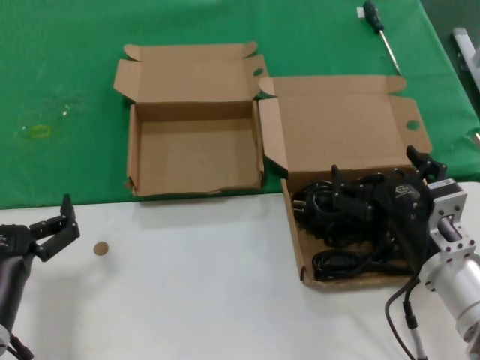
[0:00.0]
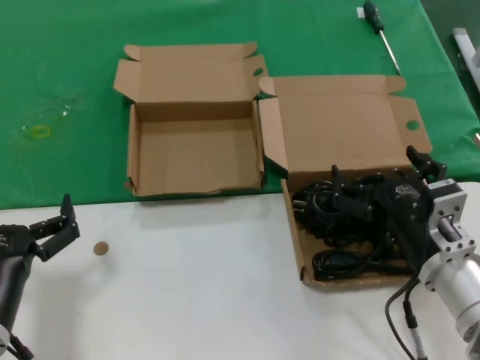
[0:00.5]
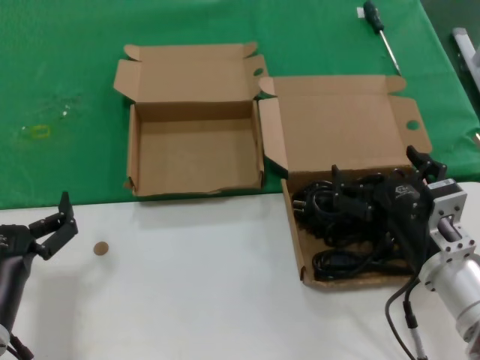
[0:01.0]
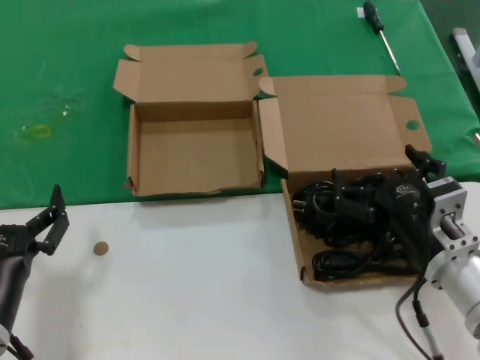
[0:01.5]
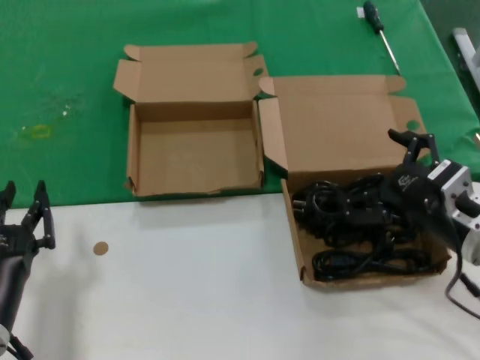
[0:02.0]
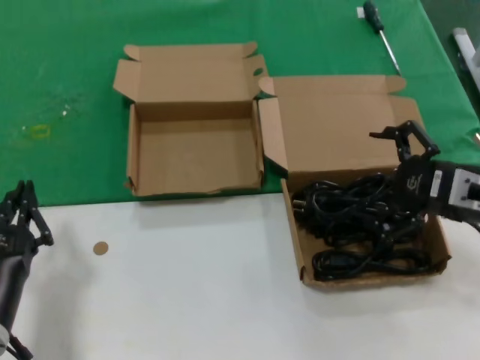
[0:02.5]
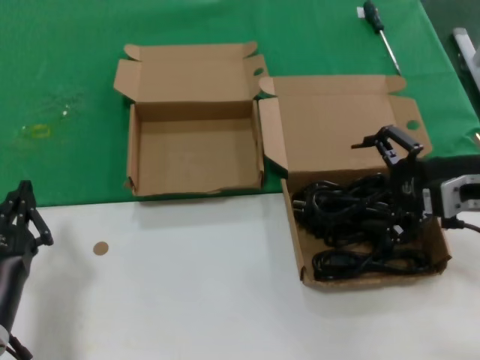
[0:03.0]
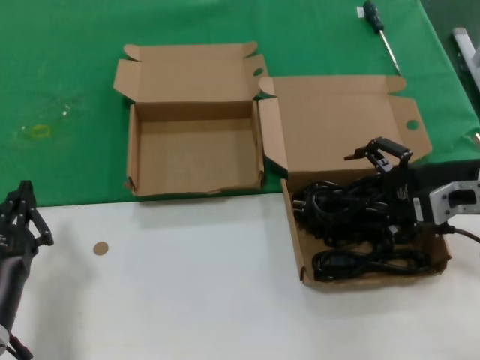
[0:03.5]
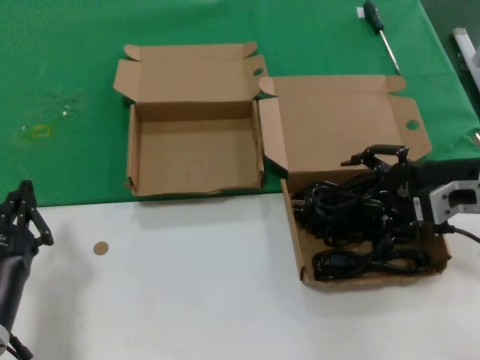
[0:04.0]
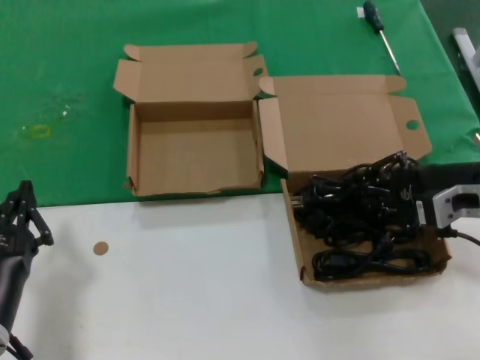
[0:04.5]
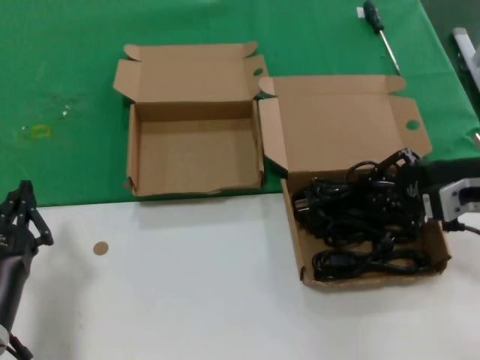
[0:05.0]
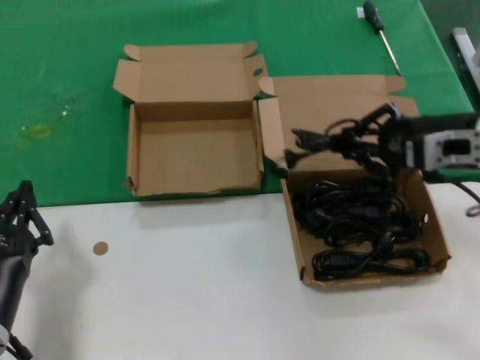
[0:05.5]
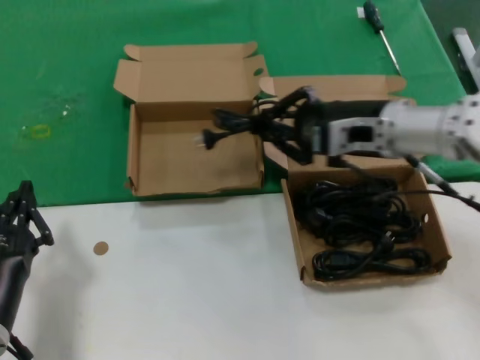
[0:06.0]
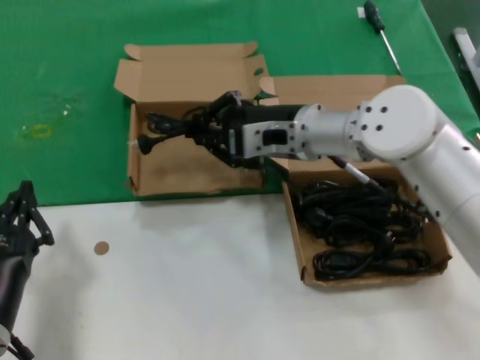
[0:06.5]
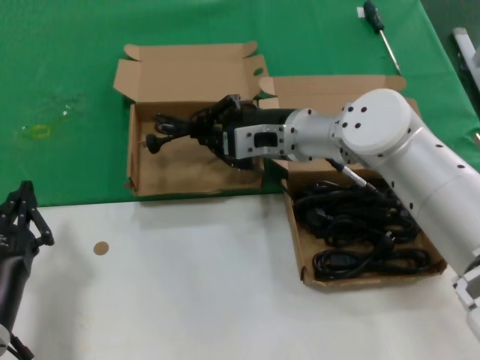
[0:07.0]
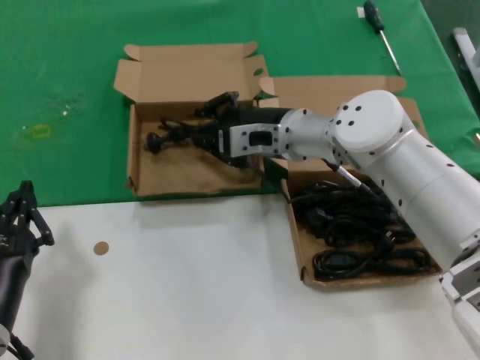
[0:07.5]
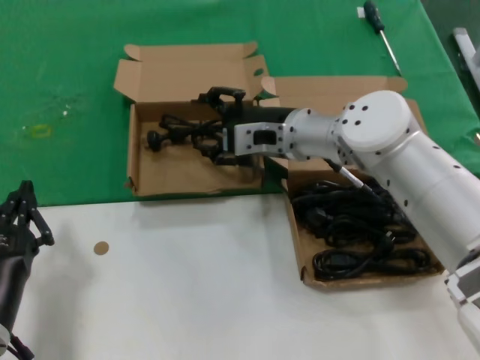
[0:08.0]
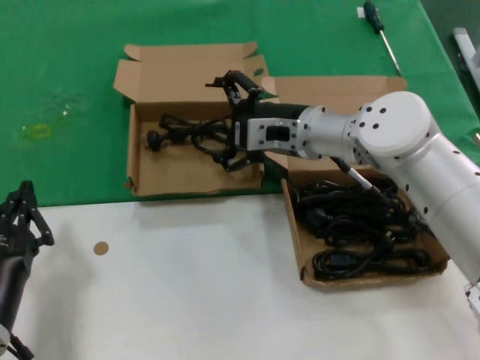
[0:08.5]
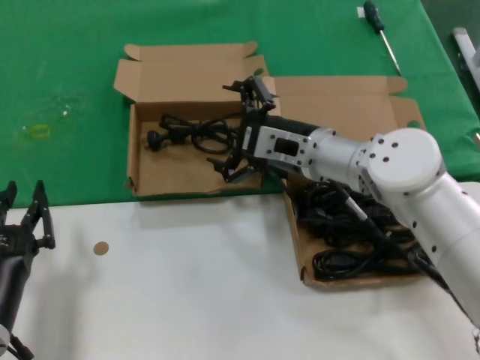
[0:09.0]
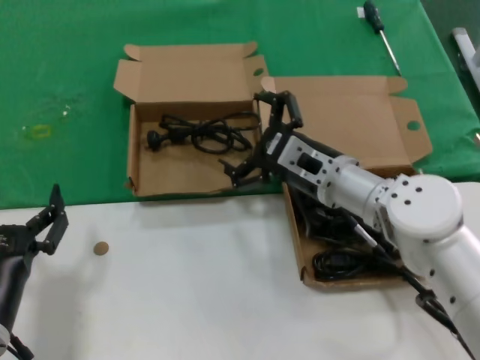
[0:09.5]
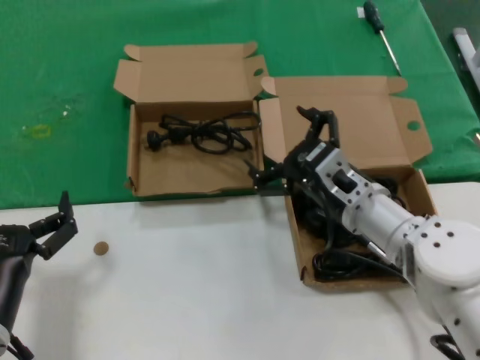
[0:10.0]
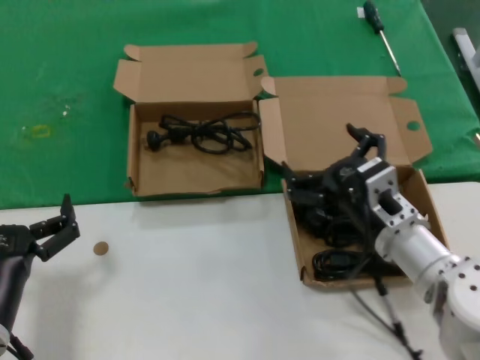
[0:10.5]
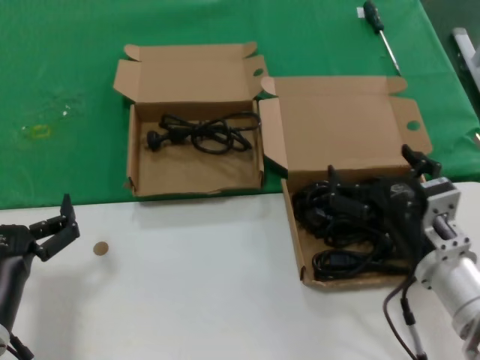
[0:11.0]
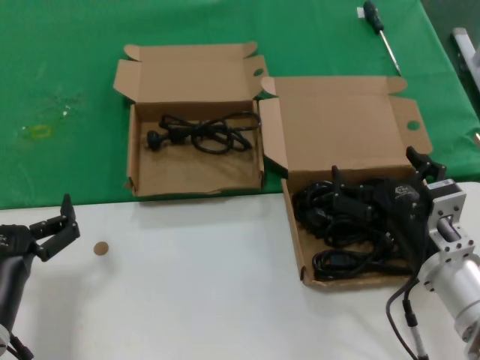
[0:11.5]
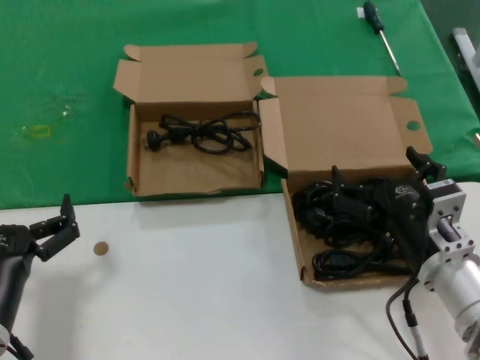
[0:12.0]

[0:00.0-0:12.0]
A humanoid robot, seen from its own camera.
Task of the whole recording: take the parts from the box containing them and put them into an empty box.
Step, 0:00.0 to 0:04.5: Grasp the data cable.
Step, 0:05.0 to 0:08.0: Place the data cable in the another box.
0:00.0 to 0:02.0: The right hand heads to the right, covering about 5 cm.
0:02.0 to 0:04.0: The right hand travels forward, upward and to the right by roughly 10 cm.
0:04.0 to 0:06.0: The right hand goes about 10 cm to the left and forward.
0:06.0 to 0:08.0: The right hand shifts some 15 cm to the left and forward.
0:08.0 to 0:10.0: The right hand travels backward, downward and to the right by about 15 cm.
0:10.0 to 0:12.0: The right hand heads backward and to the right, covering roughly 10 cm.

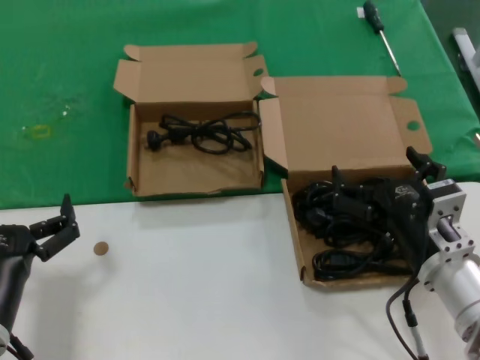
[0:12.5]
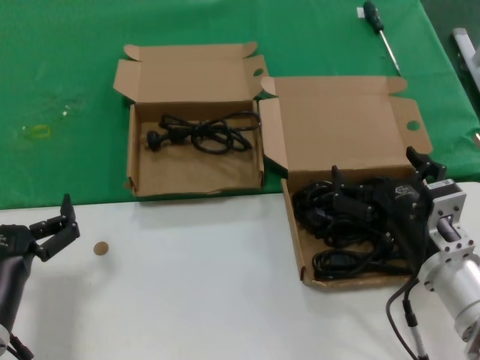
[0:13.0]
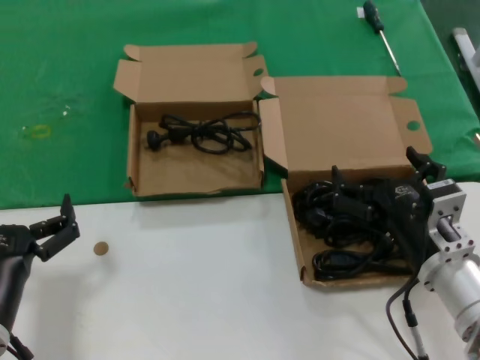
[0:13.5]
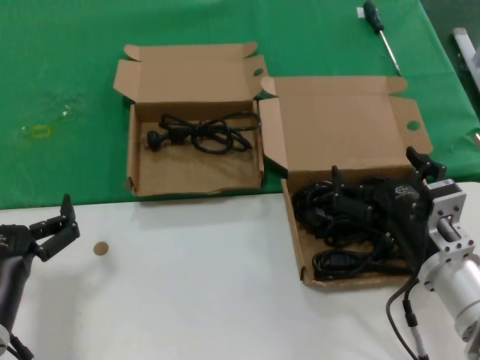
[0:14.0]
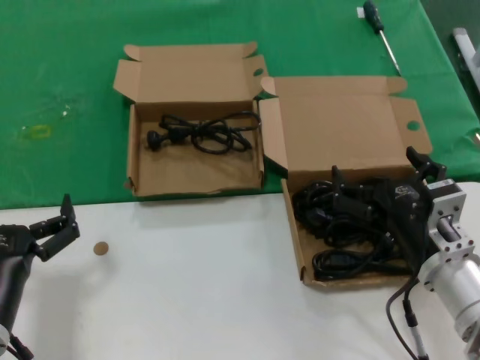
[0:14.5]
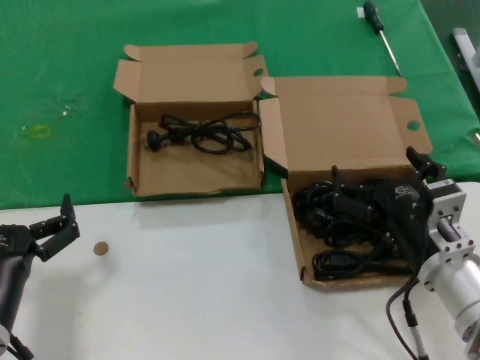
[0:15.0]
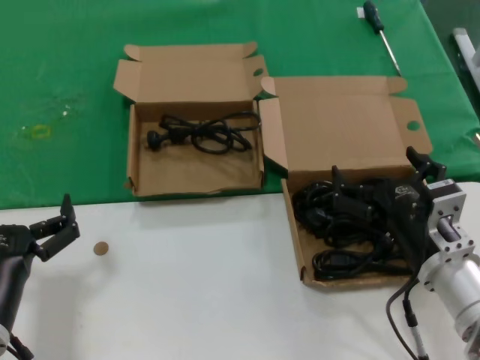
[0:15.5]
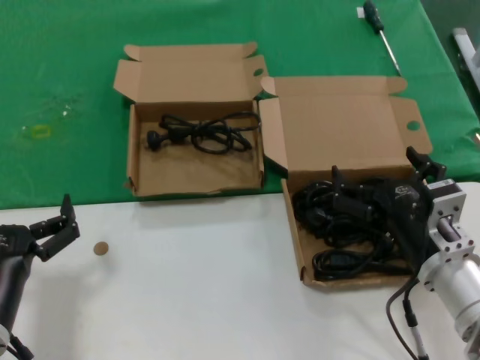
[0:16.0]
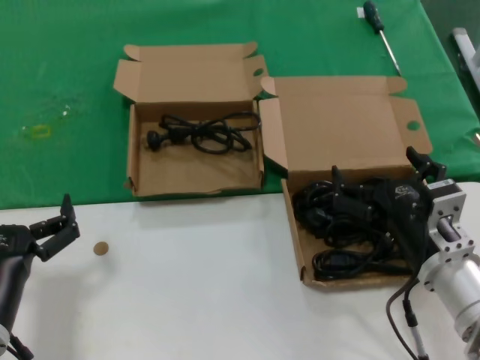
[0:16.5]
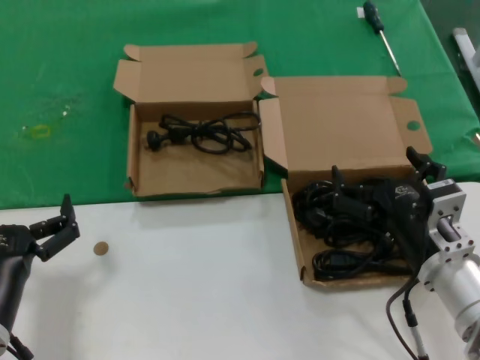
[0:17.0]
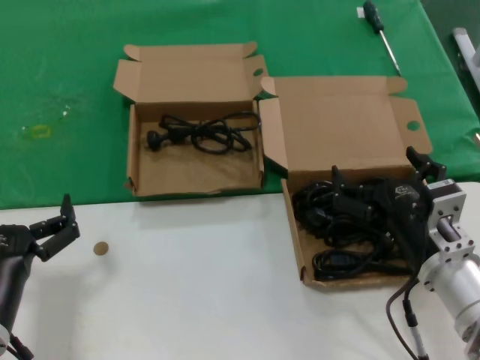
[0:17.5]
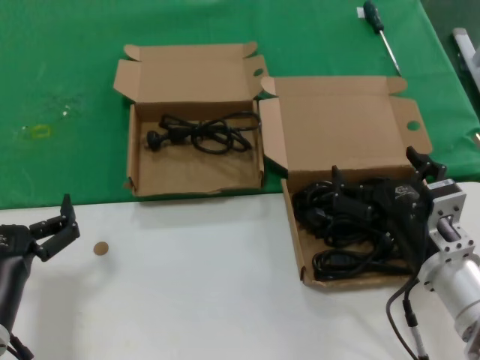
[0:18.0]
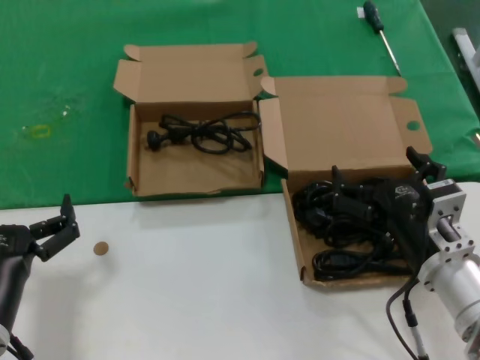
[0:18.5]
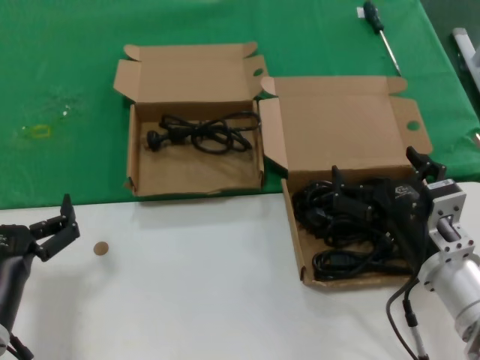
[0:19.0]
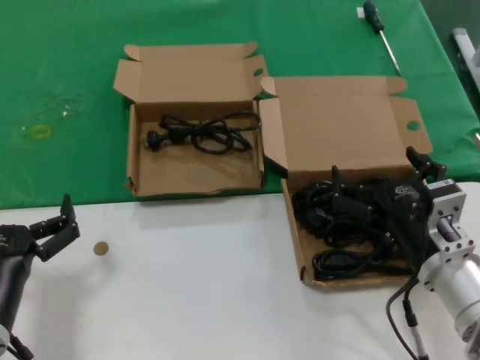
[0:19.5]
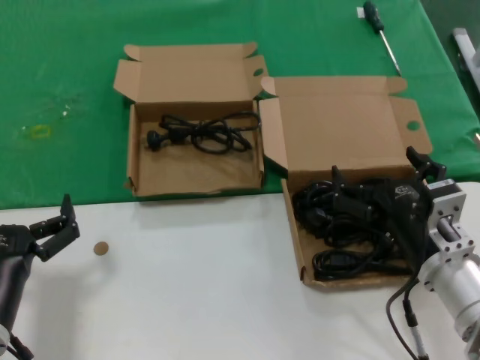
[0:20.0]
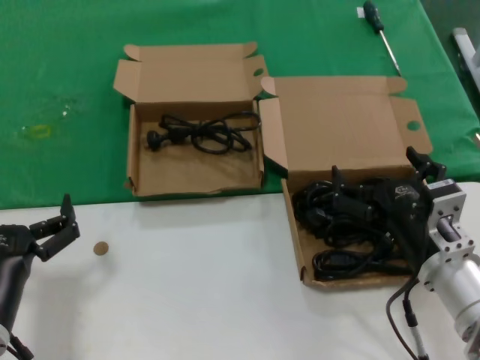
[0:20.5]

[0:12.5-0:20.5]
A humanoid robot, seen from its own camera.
Task of the whole recording: take the parts from the box containing them and put them into an empty box.
0:12.5 to 0:20.5: Neither hand changes place.

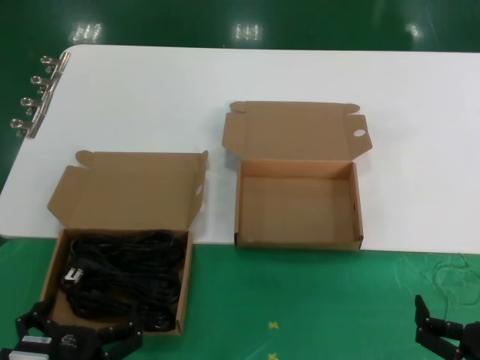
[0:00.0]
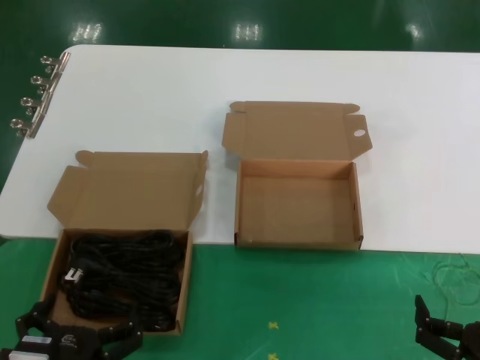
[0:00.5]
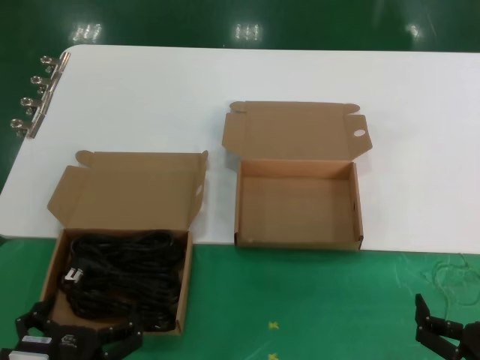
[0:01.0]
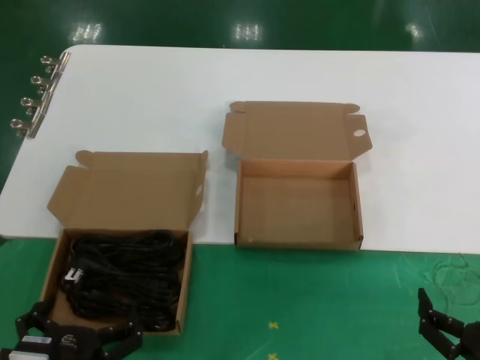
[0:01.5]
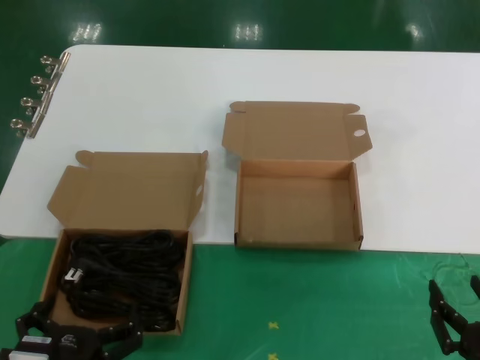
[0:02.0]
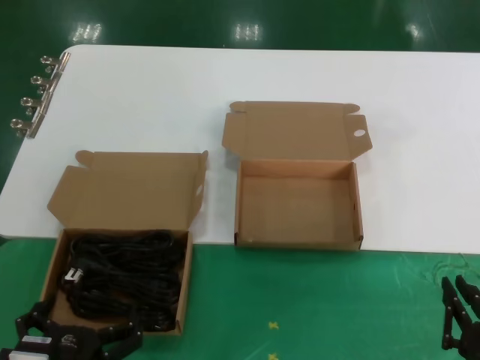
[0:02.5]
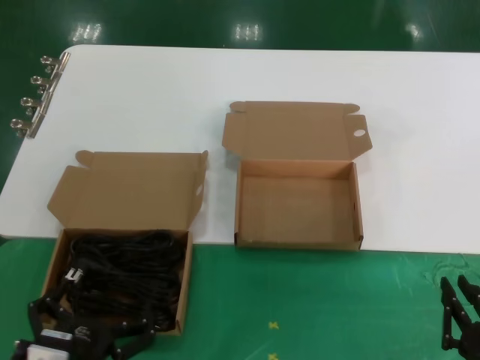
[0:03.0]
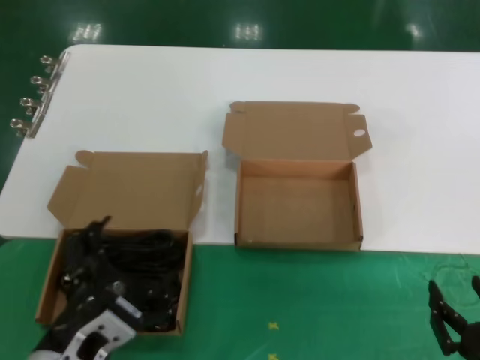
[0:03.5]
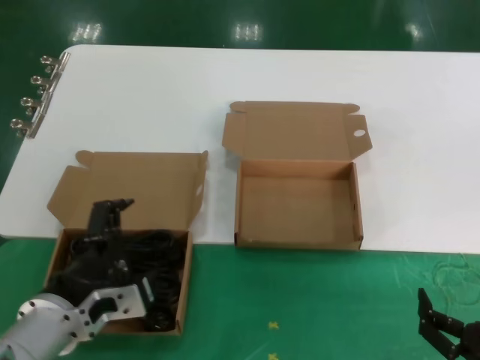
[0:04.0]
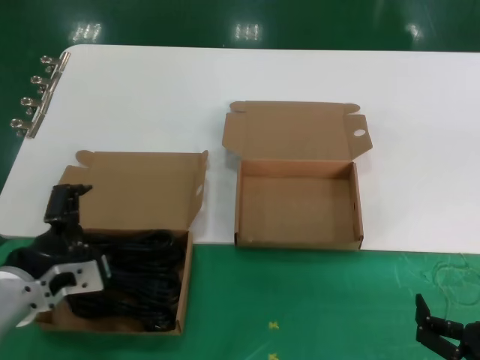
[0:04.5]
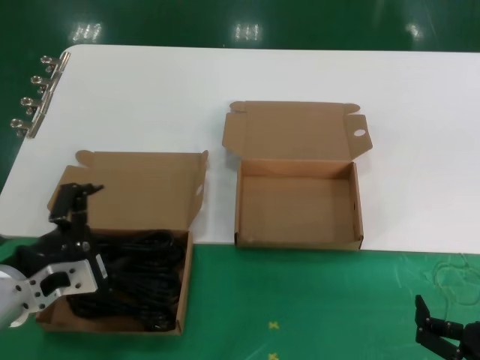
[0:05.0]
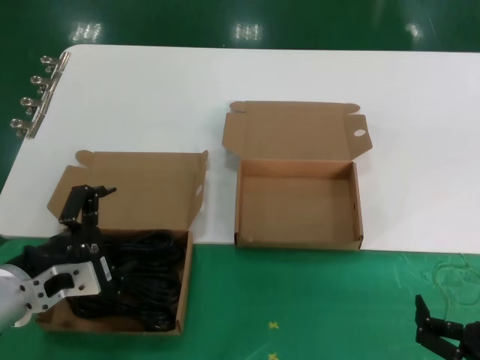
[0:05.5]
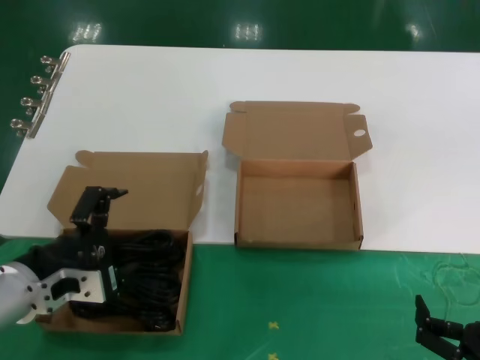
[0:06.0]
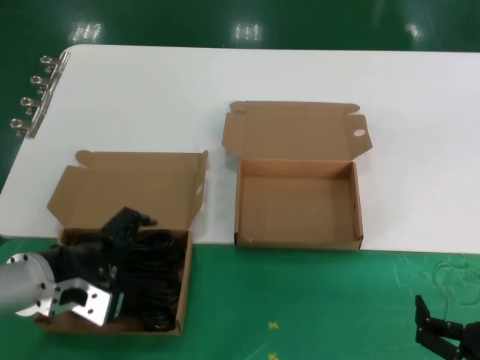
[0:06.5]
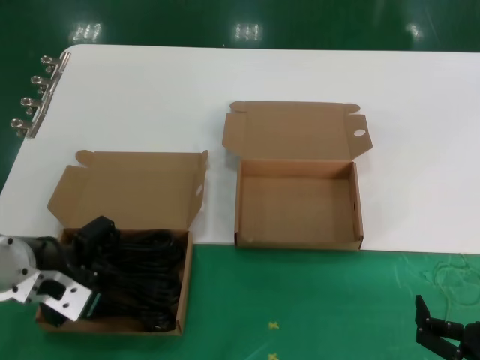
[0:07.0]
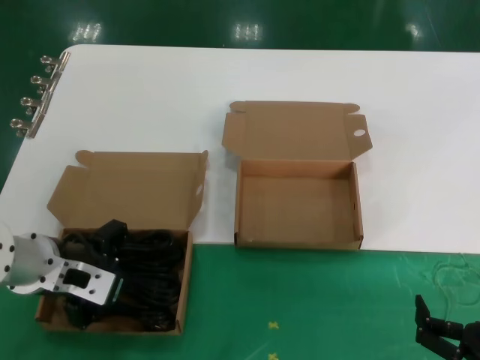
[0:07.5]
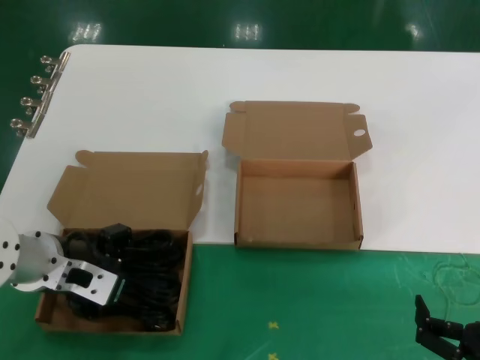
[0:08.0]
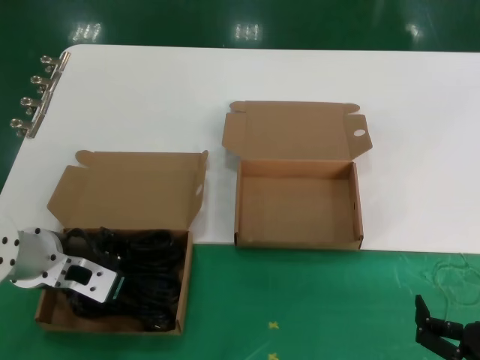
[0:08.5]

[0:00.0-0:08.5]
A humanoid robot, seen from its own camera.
Task of the whole recording: take the parts from the box containing them and put them into an empty box.
0:00.0 to 0:02.0: Both hands stay about where they are.
0:02.0 to 0:04.0: The left hand is displaced upward and forward by roughly 10 cm.
0:04.0 to 0:06.5: The left hand is displaced forward and to the left by approximately 10 cm.
0:06.5 to 0:08.5: The left hand moves approximately 5 cm.
